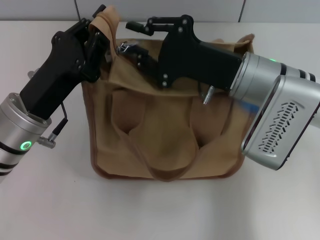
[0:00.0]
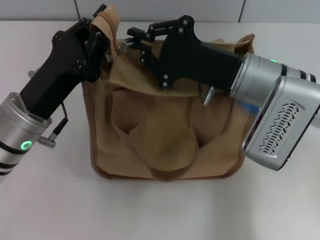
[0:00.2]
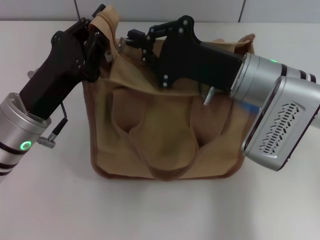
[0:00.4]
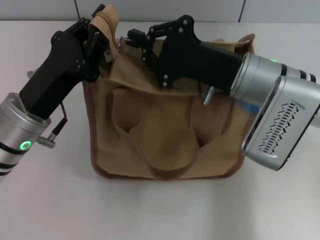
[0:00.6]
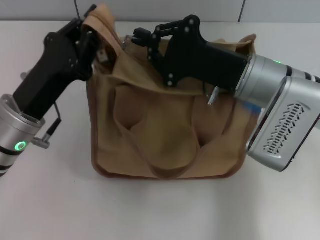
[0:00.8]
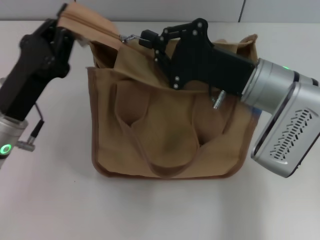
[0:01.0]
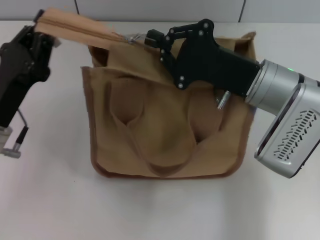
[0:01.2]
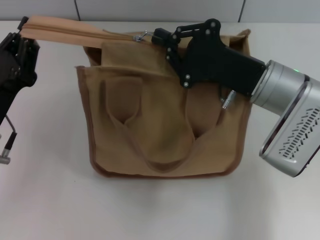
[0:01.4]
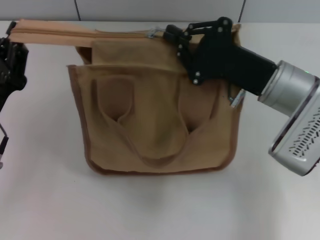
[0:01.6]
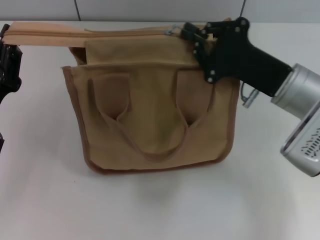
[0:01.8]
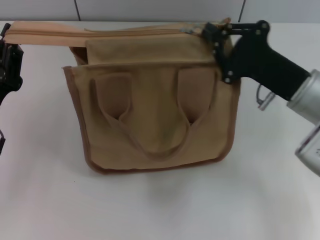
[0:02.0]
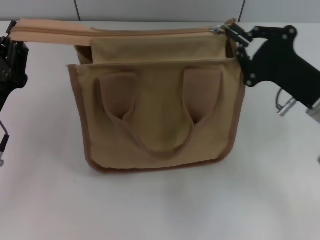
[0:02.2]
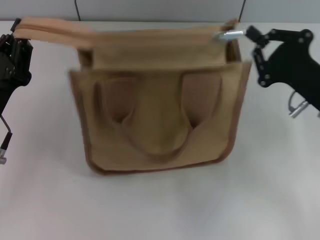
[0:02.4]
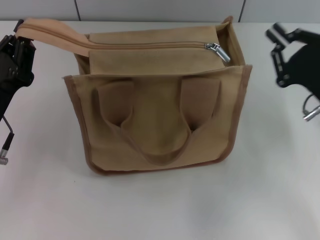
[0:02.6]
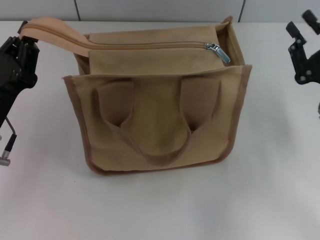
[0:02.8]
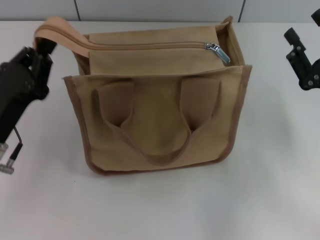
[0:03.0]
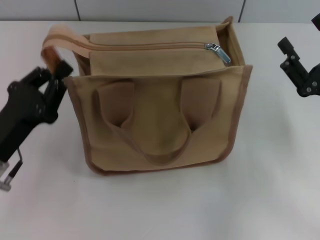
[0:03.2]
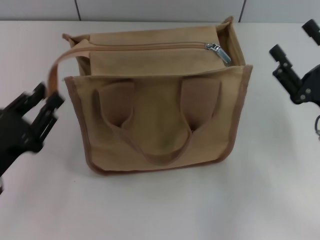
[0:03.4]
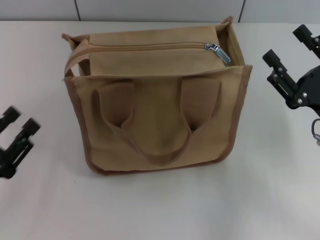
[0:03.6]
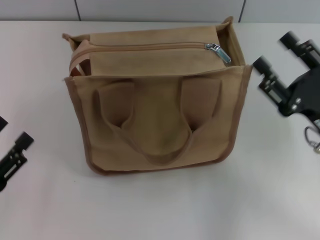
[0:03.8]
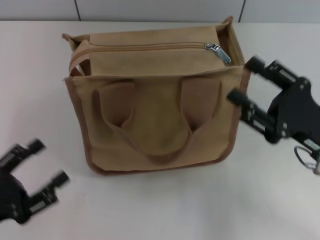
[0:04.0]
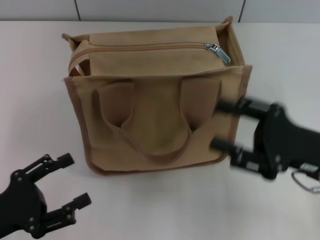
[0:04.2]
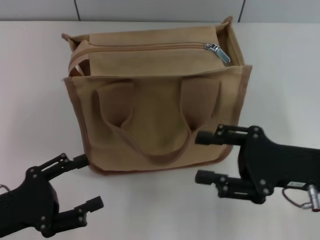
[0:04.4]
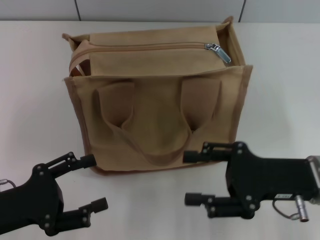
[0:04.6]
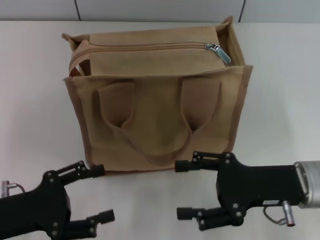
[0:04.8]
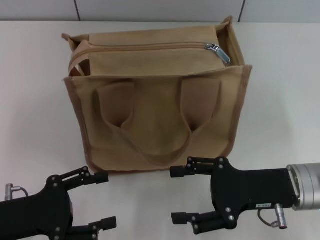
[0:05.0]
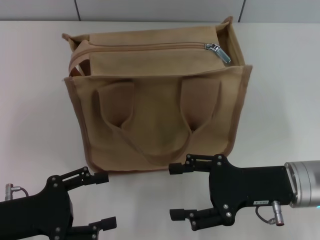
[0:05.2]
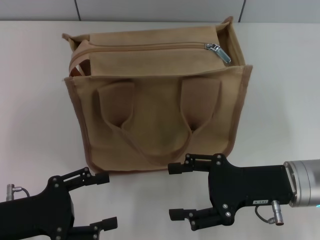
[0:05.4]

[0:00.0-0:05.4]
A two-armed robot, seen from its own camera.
Step, 0:00.0 to 0:02.4: Pull up the zipper with your right hand.
Step, 0:02.6 to 0:03.4: Grab the zipper with your left hand.
0:00.0 to 0:01.4: The right gripper closes; the left gripper goes roughly 5 cm to the left.
0:01.4 to 0:02.8: The right gripper moves to the right and backward, about 15 cm.
0:02.8 to 0:04.0: The right gripper opens, while the left gripper travels backward and to the left by approximately 10 cm, and opens.
0:04.0 to 0:05.4: The left gripper ends up roughly 5 cm from where it was.

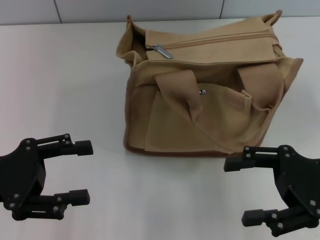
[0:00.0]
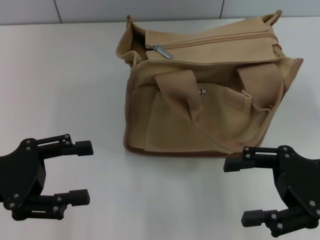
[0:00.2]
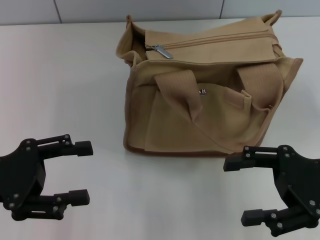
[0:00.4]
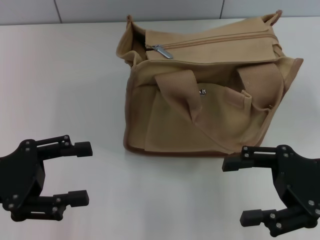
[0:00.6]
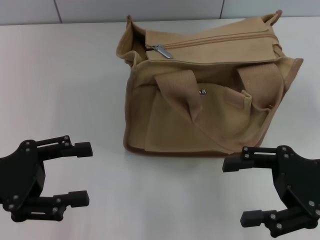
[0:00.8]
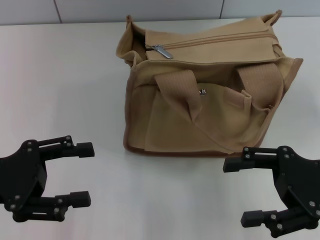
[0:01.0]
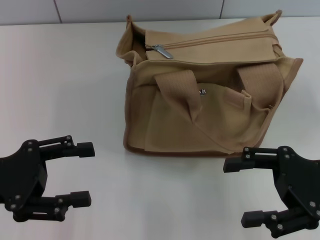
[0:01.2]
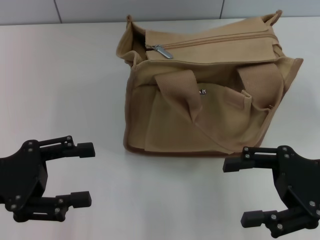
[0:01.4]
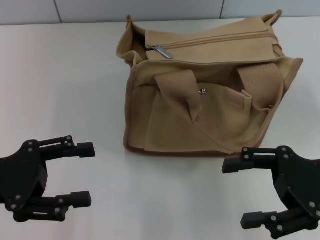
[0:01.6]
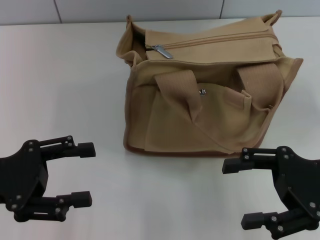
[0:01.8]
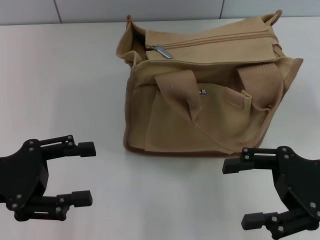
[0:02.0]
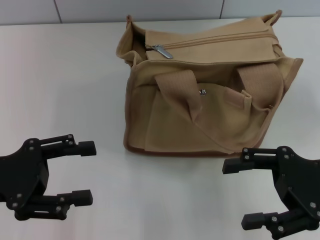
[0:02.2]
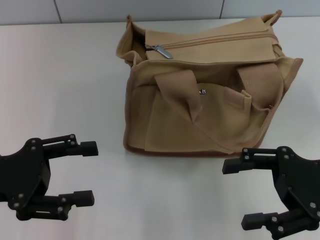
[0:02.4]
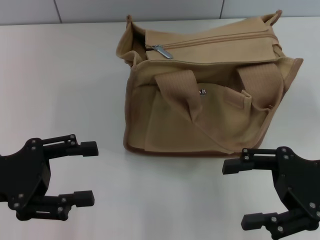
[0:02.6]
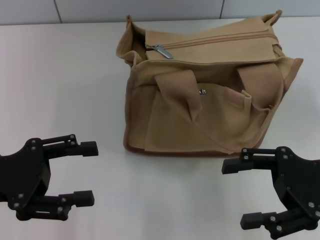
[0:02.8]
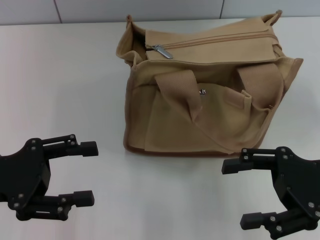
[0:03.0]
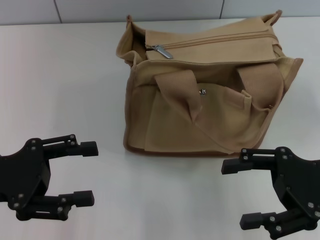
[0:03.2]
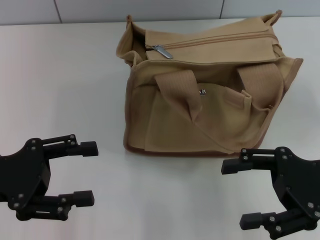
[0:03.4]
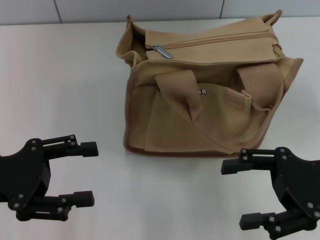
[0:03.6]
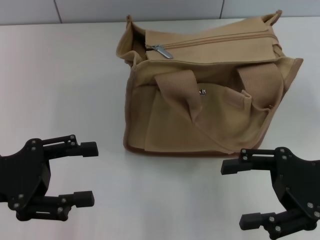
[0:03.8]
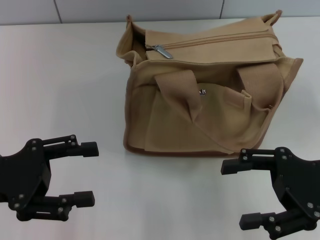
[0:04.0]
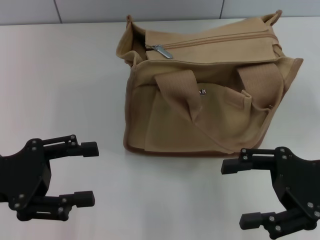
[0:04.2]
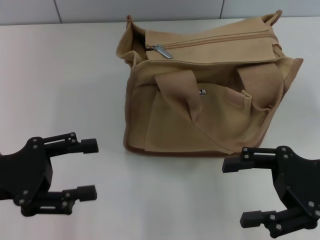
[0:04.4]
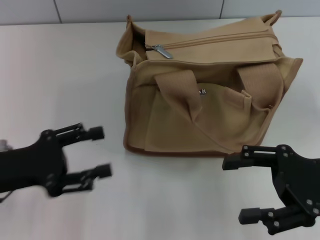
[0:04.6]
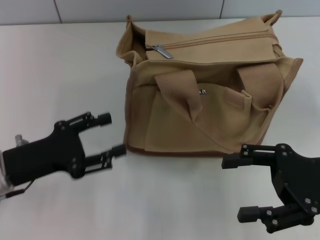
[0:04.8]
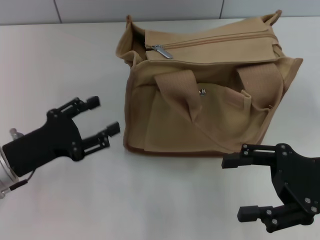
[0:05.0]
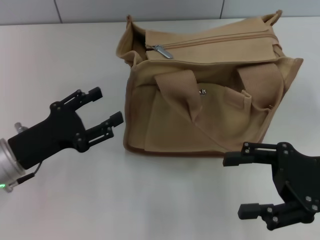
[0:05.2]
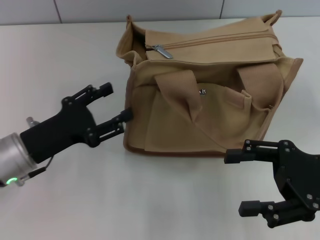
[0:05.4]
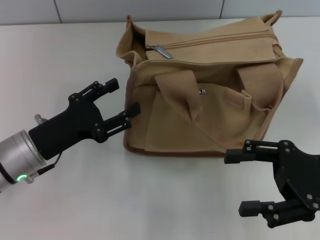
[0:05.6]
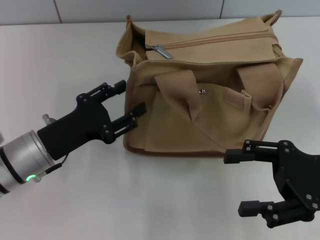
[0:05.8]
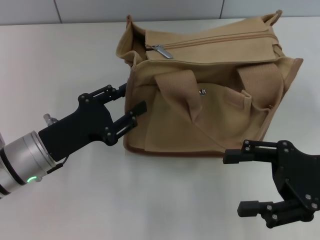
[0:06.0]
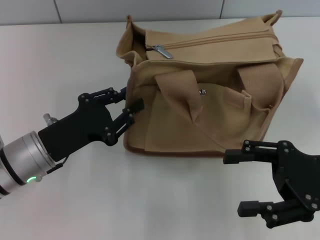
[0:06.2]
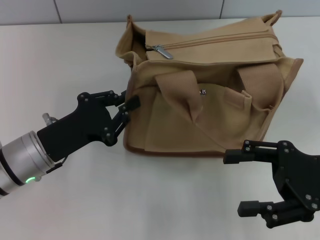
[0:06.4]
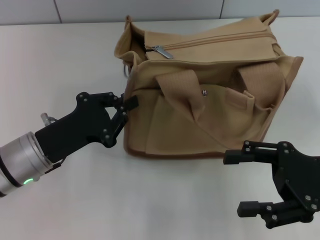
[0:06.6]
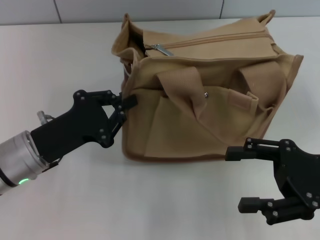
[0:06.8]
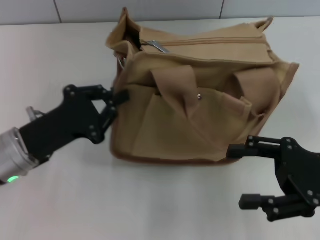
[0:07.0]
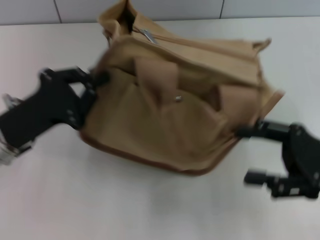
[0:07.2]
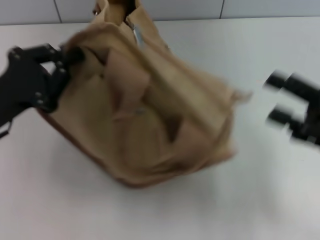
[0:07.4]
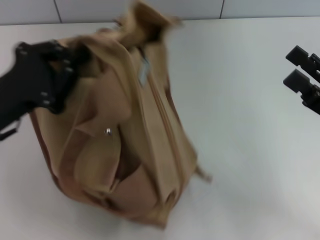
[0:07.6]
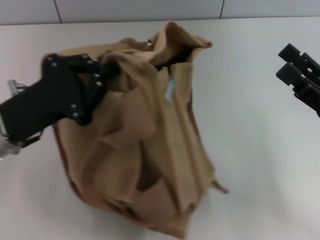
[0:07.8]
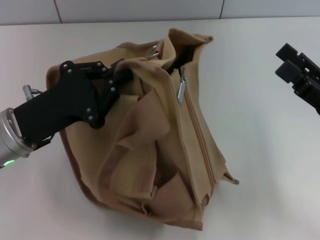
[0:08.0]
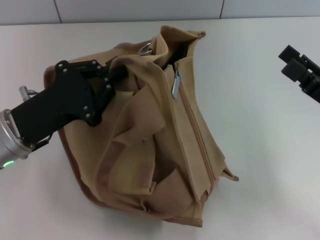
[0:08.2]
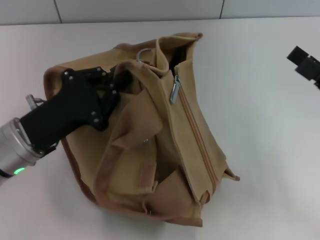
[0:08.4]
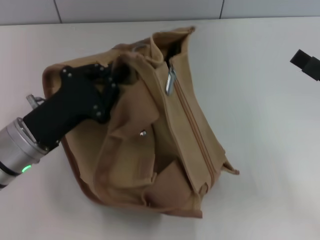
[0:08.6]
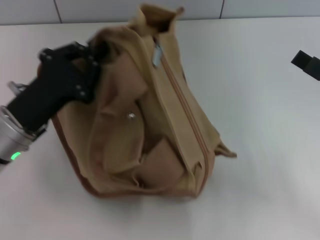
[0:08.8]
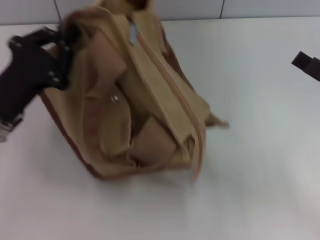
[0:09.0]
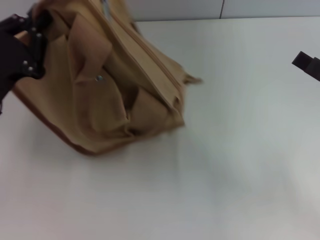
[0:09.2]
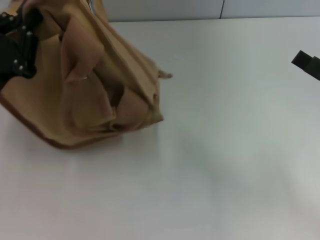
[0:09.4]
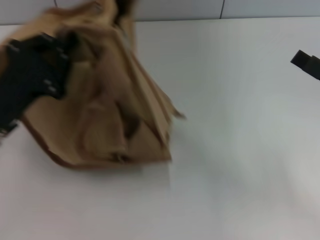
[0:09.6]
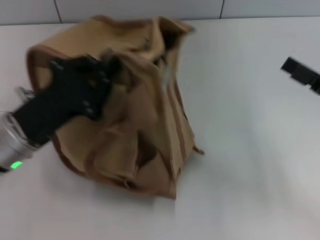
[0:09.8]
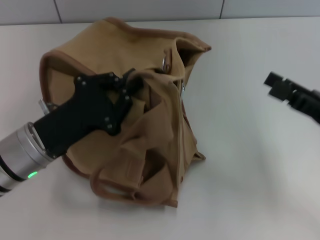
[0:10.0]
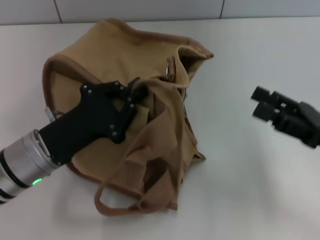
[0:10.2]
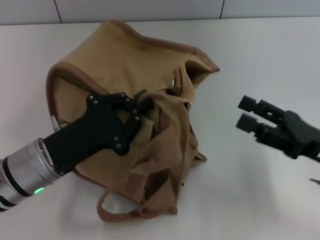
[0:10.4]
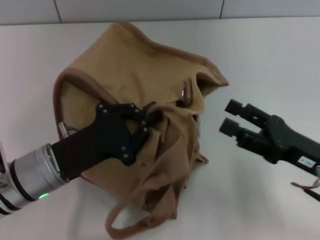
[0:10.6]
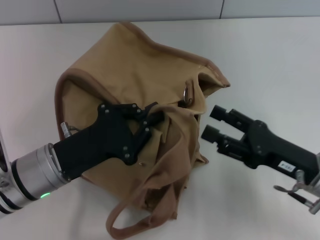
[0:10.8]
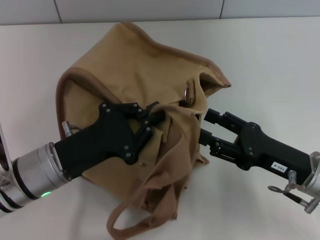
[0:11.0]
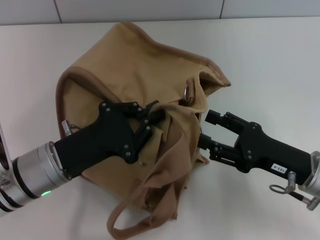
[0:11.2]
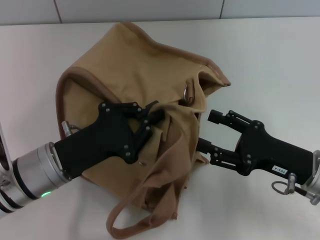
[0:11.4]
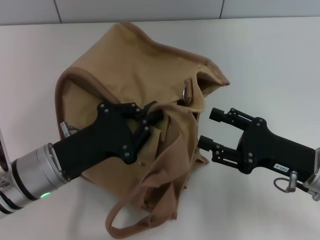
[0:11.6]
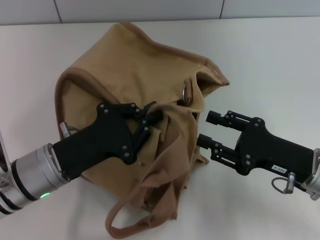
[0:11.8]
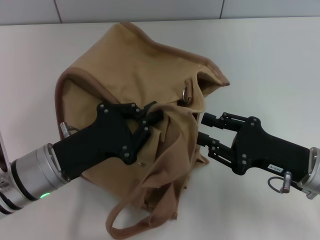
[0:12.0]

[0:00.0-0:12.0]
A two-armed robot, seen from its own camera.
0:00.0 to 0:04.4: The two grippers keep their place.
0:04.4 to 0:06.0: The left gripper is displaced to the right and downward by approximately 10 cm.
0:06.0 to 0:07.6: The left gripper heads upward, covering about 5 cm, and closes up.
0:09.0 to 0:10.4: The right gripper moves roughly 5 cm. The left gripper moves to the right, some 5 cm.

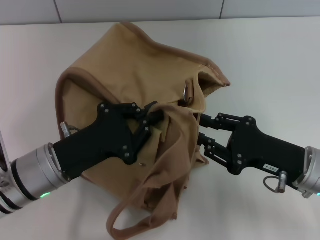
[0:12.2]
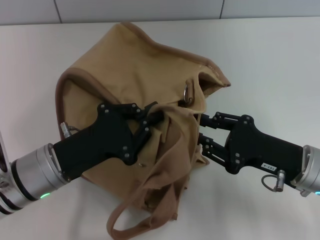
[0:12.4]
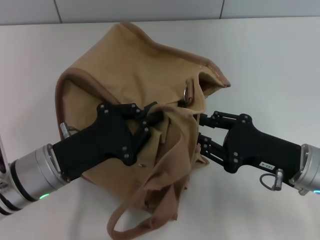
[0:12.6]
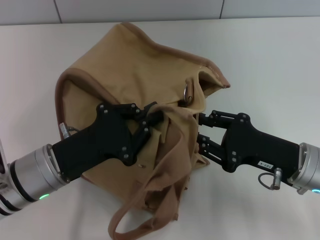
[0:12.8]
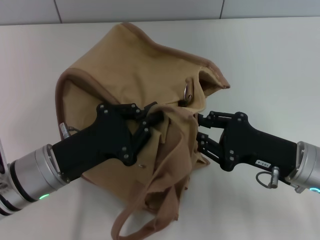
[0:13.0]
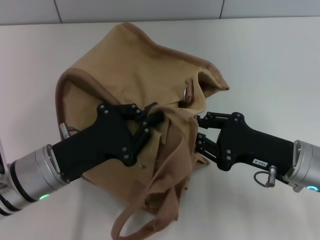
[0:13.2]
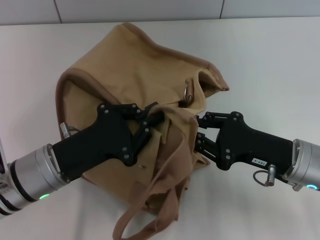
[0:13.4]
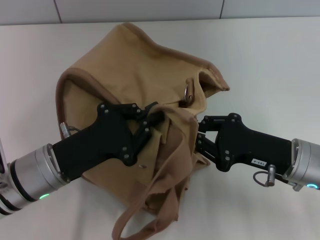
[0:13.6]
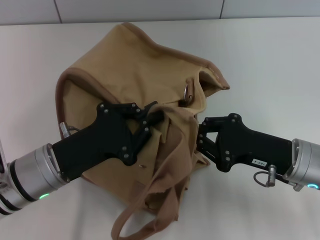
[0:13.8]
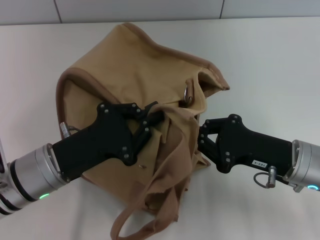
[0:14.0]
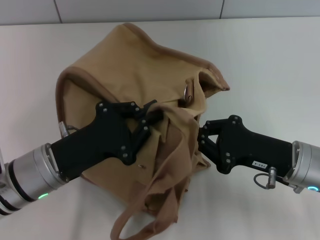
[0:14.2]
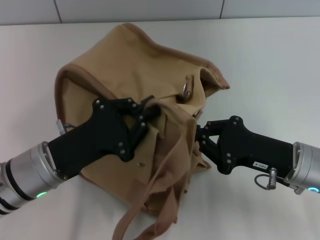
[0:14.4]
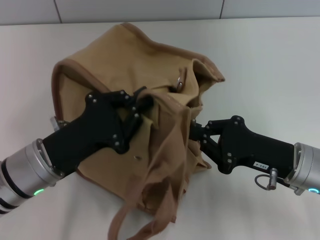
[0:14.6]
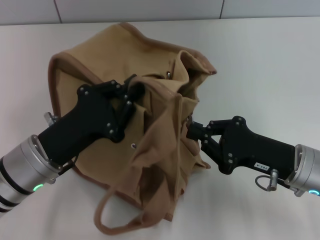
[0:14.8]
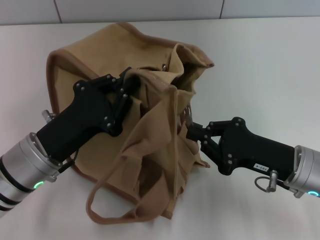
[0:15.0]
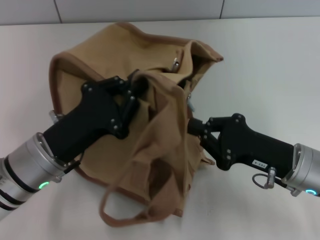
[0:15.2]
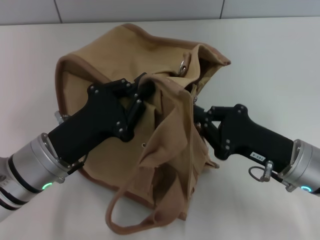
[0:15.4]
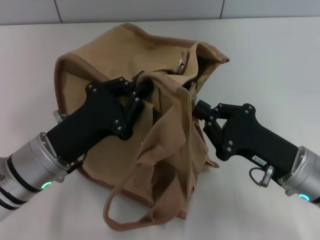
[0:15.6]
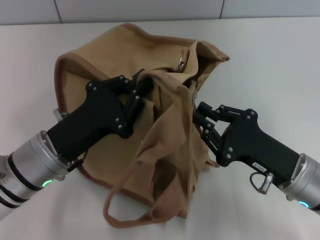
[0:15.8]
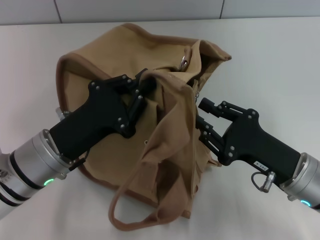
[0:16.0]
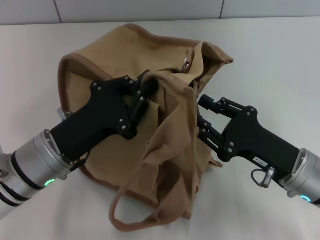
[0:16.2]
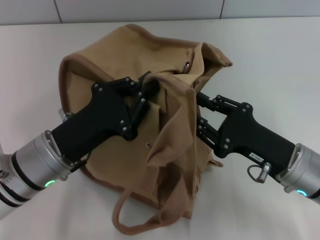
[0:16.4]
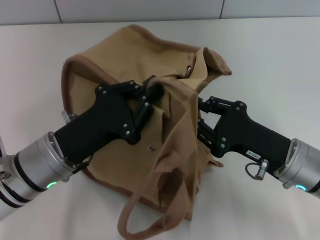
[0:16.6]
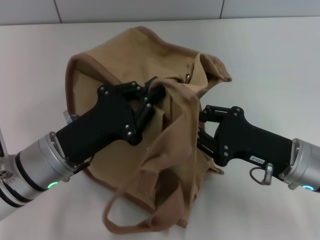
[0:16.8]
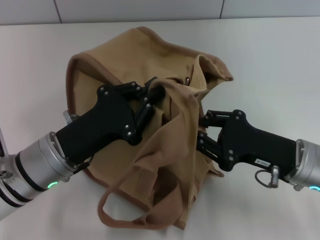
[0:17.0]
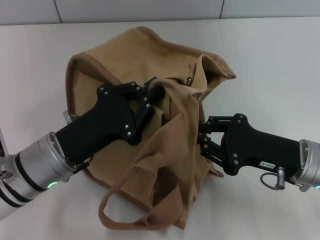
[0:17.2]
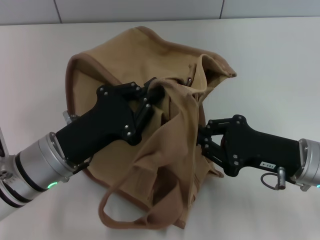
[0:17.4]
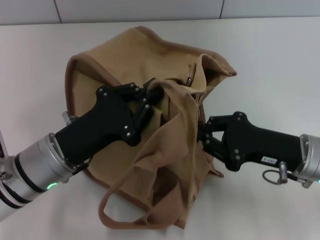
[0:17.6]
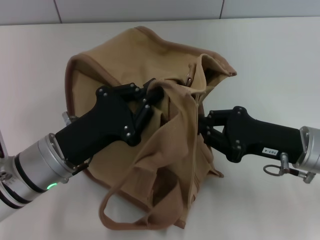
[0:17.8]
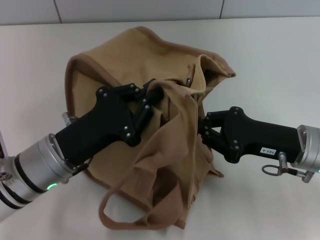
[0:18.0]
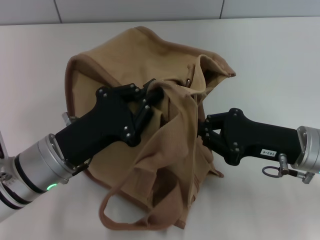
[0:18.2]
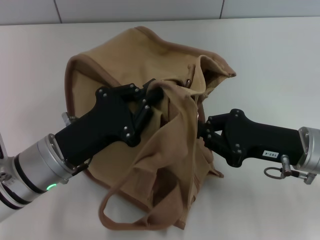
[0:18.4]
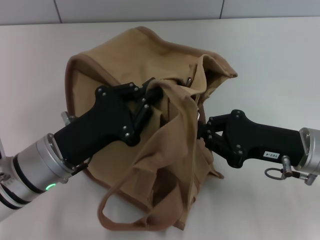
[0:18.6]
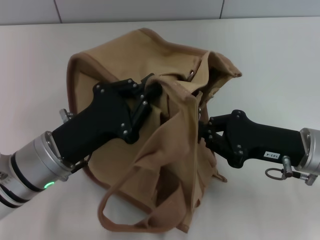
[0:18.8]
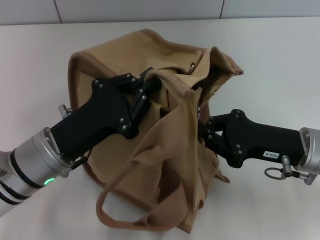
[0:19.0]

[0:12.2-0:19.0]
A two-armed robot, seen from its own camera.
0:12.2 to 0:13.6: The grippers make only small movements.
0:15.0 to 0:16.2: The right gripper opens up.
0:17.6 to 0:19.0: There are only small adjustments of the grippers.
